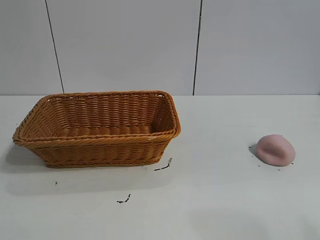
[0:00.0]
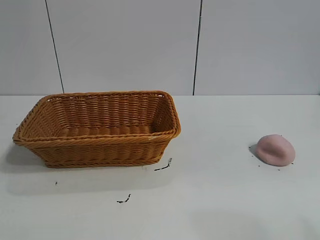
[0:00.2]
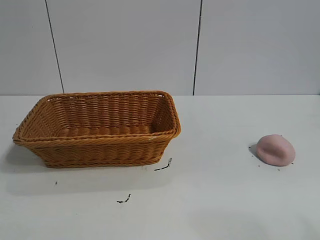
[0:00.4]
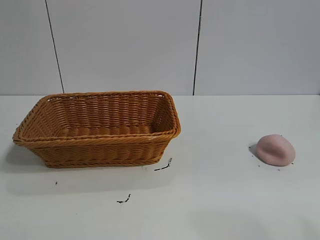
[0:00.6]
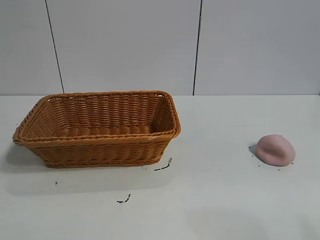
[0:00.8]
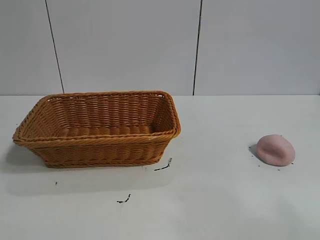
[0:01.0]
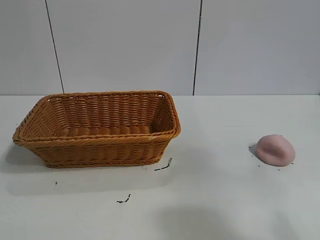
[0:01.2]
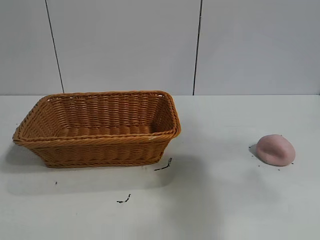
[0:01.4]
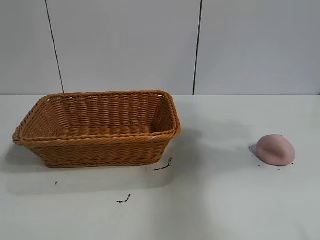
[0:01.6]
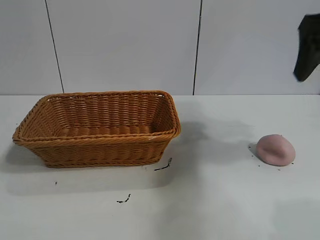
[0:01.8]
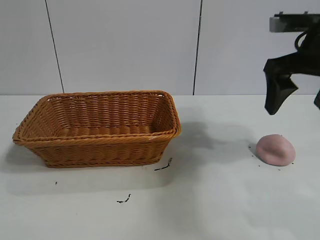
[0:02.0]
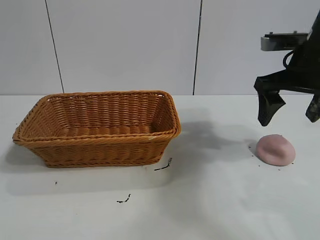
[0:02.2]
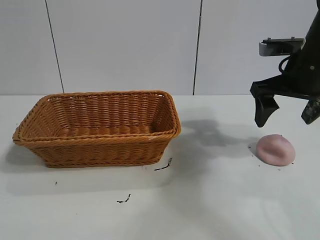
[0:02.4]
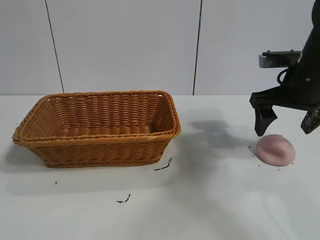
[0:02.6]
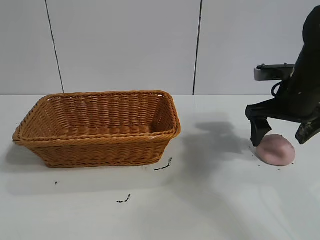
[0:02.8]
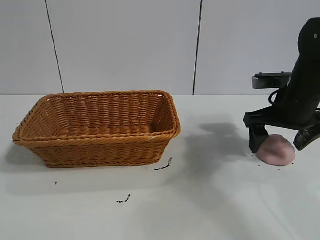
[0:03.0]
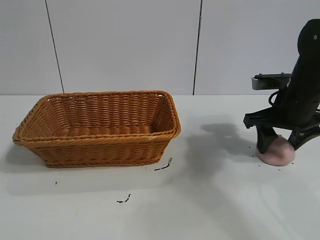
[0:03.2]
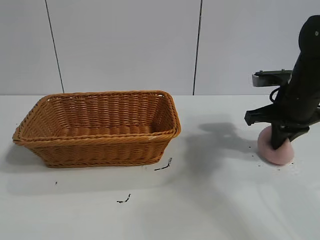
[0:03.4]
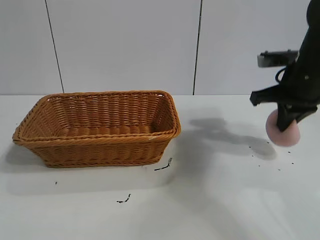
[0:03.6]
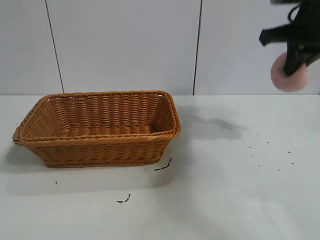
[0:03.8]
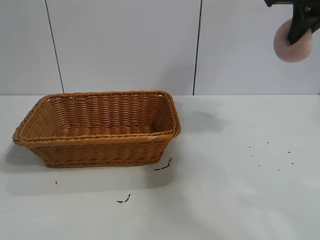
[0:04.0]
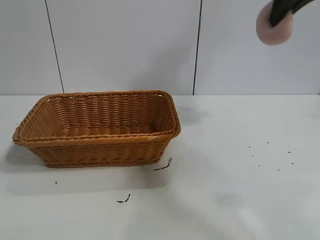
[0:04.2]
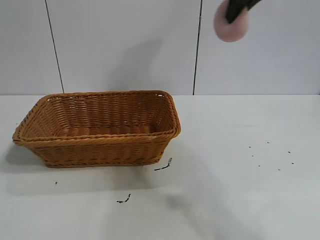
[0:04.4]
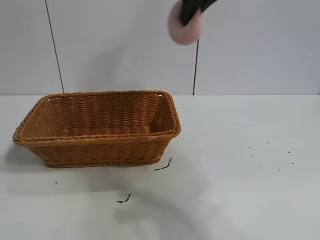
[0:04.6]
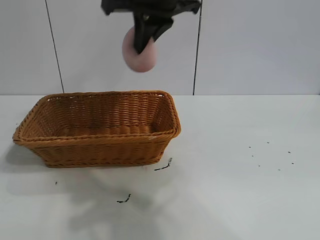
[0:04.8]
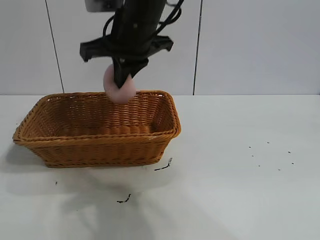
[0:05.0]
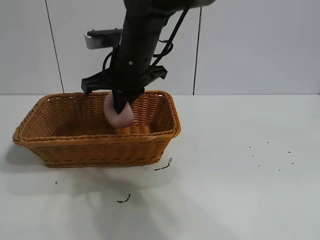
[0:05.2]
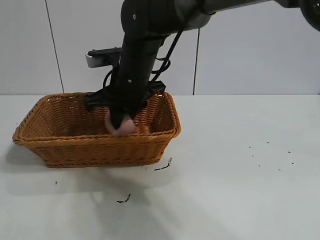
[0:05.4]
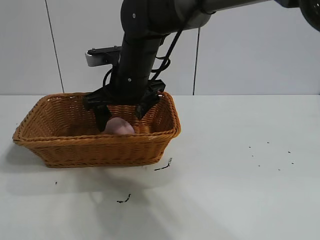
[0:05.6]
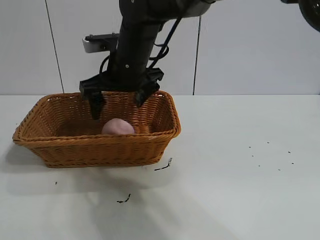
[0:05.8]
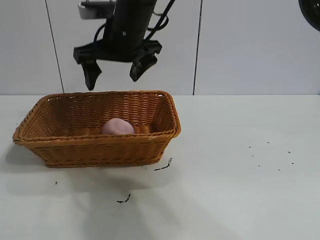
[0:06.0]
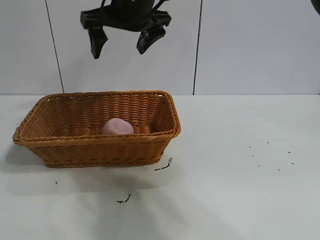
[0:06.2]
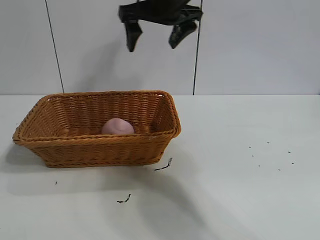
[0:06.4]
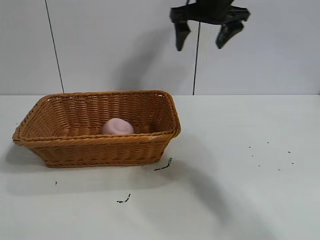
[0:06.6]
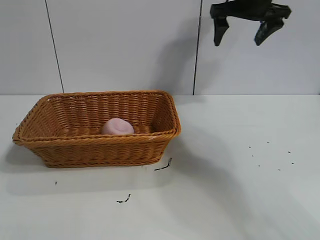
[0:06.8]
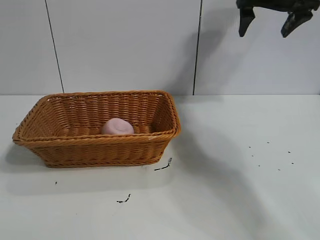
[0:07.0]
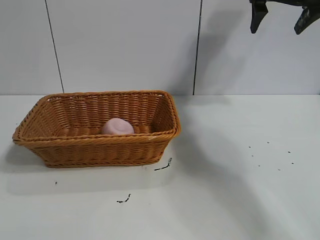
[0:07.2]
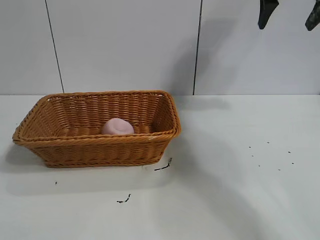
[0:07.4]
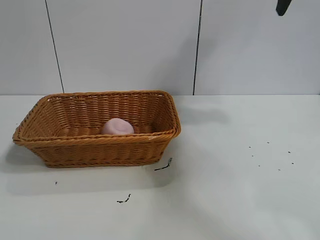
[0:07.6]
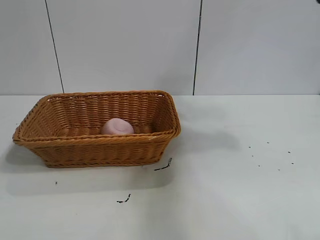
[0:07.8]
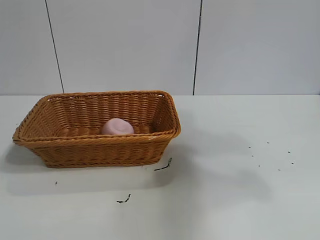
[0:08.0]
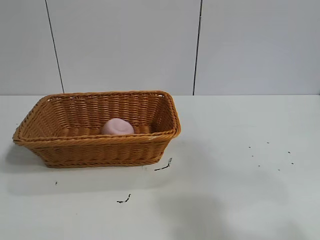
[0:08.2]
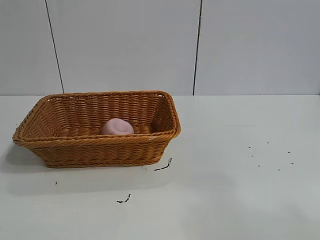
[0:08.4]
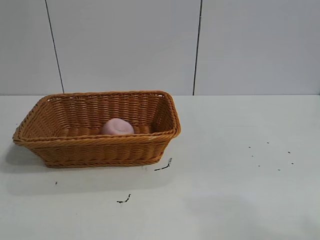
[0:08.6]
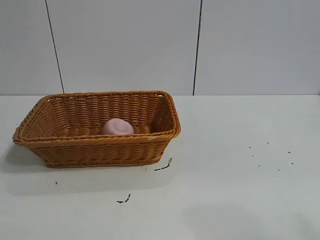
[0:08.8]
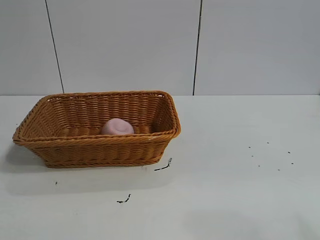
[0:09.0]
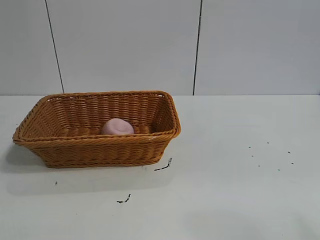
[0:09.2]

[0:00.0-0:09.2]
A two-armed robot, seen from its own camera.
Task of the whole recording: pick up the peach and put it into the basket.
Step, 0:00.8 to 0:03.2: Grasp the peach with right gripper.
Step, 0:03.6 to 0:05.4: Place the peach in the basket with right gripper.
